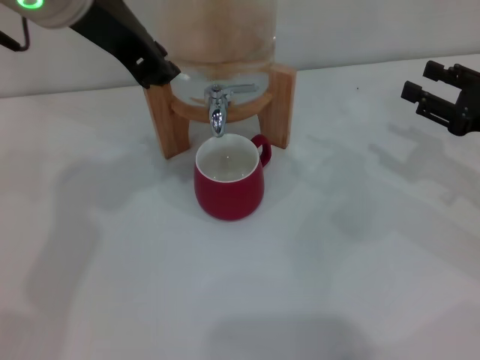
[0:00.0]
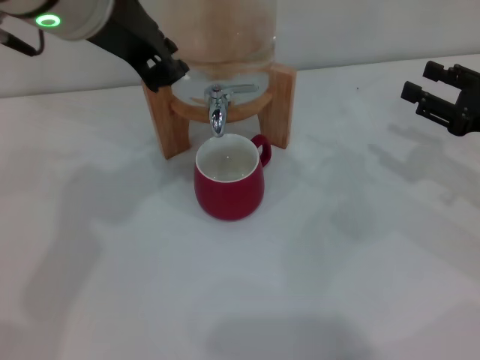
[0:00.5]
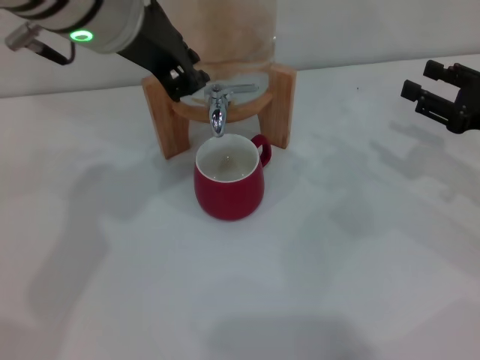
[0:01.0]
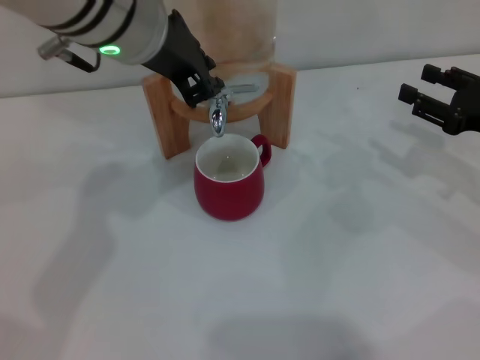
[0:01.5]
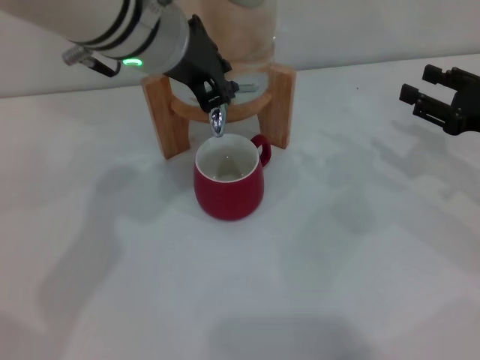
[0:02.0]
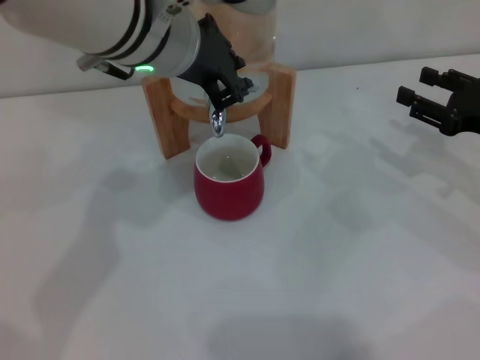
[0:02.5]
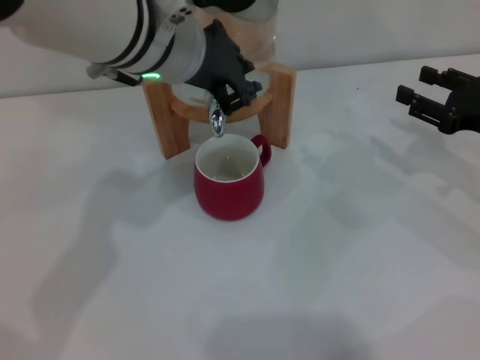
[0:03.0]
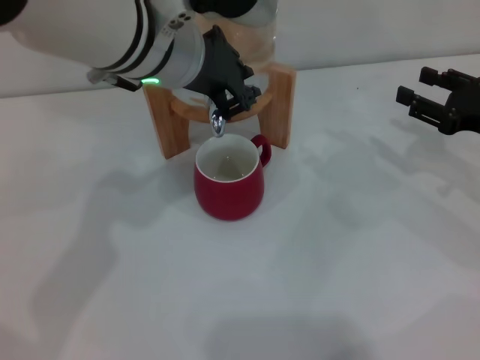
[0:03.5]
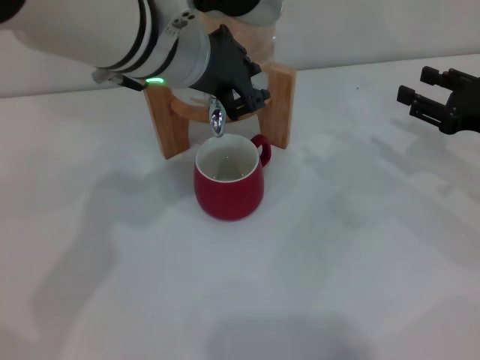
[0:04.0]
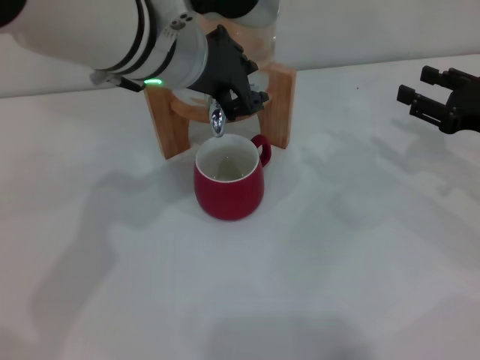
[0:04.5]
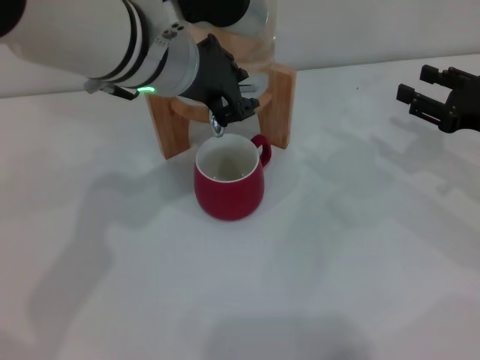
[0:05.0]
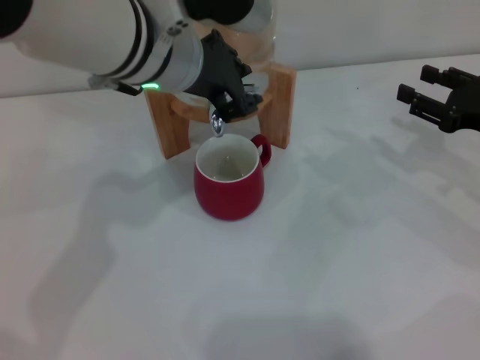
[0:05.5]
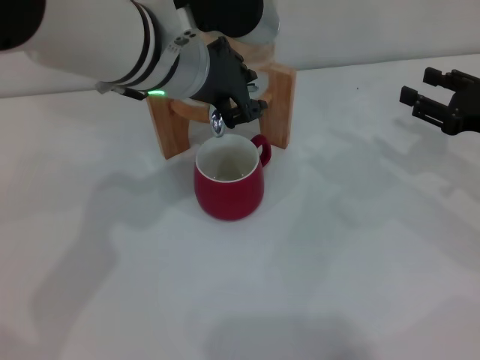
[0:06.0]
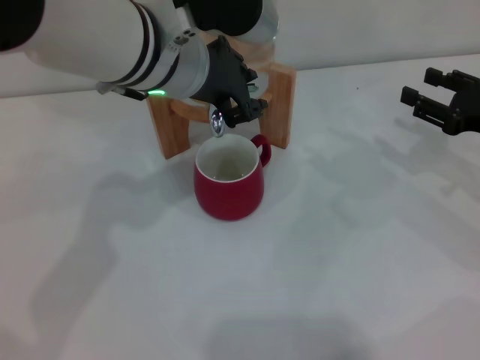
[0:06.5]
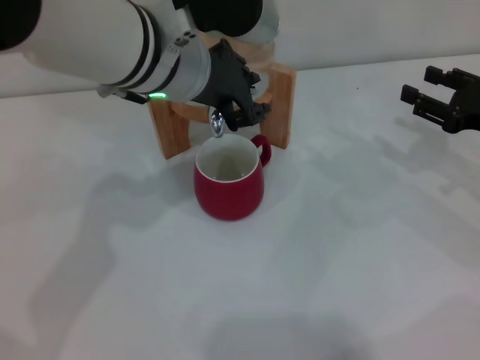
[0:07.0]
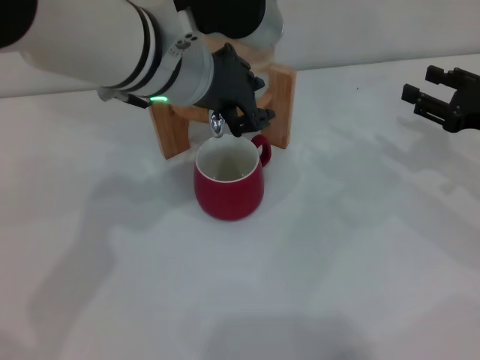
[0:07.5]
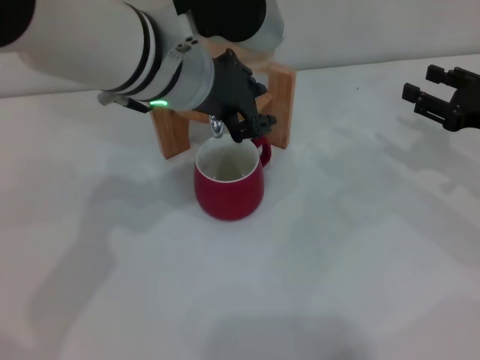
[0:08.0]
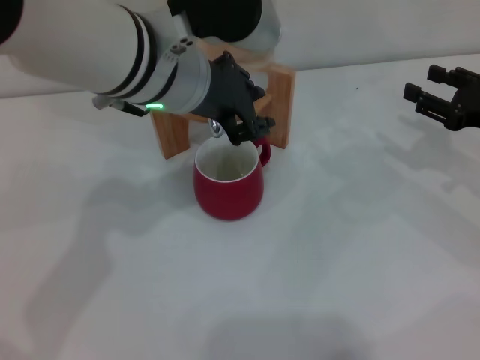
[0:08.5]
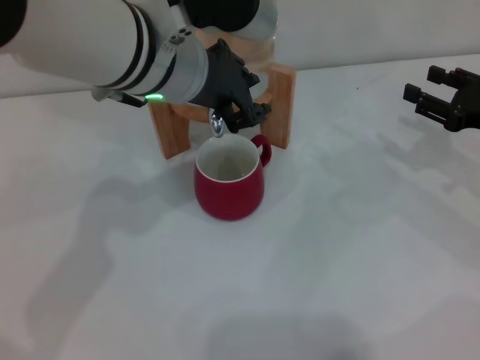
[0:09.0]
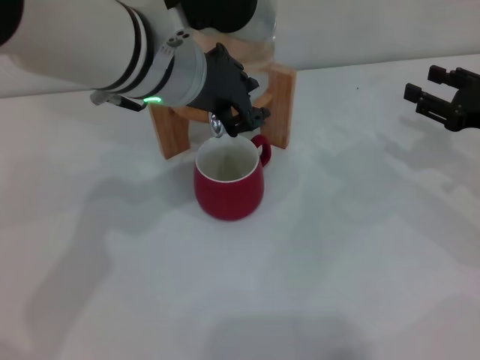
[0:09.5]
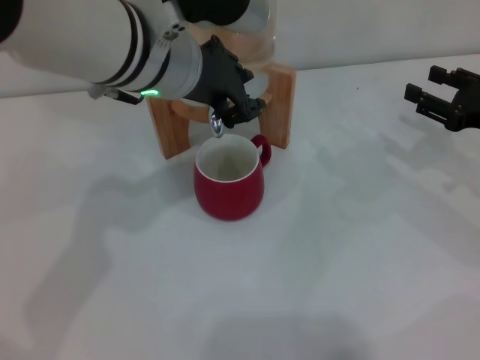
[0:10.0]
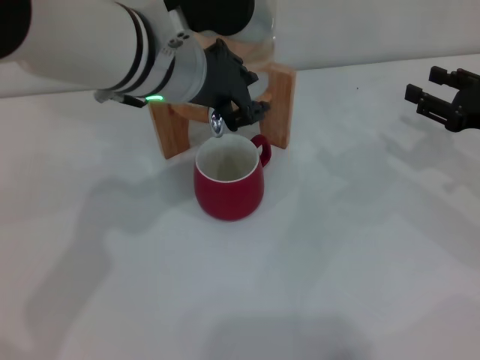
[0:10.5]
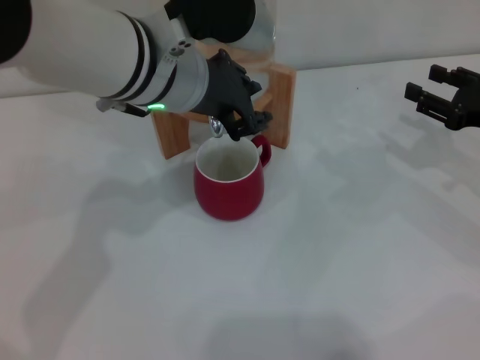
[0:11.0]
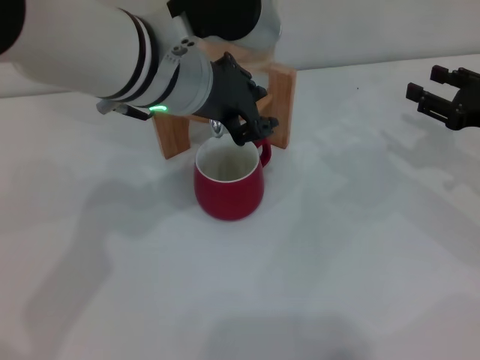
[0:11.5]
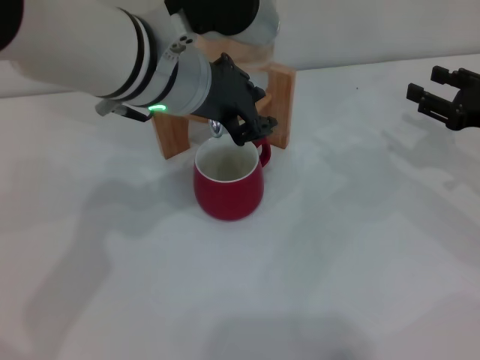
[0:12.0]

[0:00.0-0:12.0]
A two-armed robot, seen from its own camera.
Task of the whole recording: the right gripper pick up the red cup and place it horizontally under the faucet, the left gripper turn on the faucet to fill the cup, and then turn off the faucet.
0:00.0 to 0:02.0: The left gripper moves downward, some 5 cm.
0:02.0 to 0:06.0: The grippers move only a little.
0:06.0 to 0:08.0: The two grippers keep their place.
0:08.0 to 0:10.0: Both grippers stay about where they are.
0:10.0 to 0:12.0: Both grippers stay about where they are.

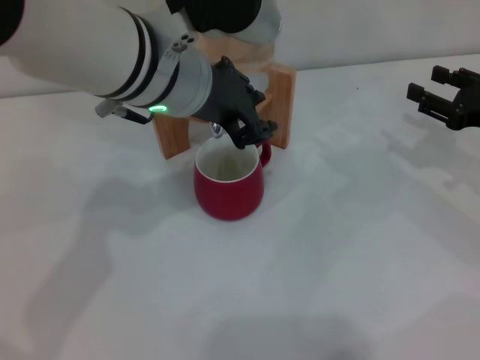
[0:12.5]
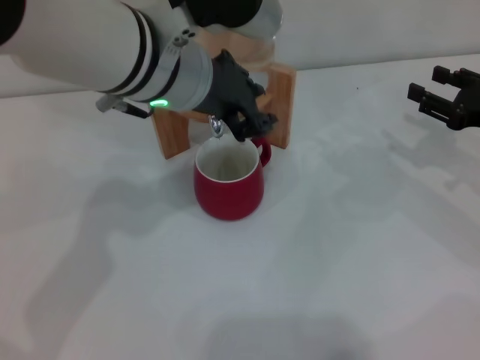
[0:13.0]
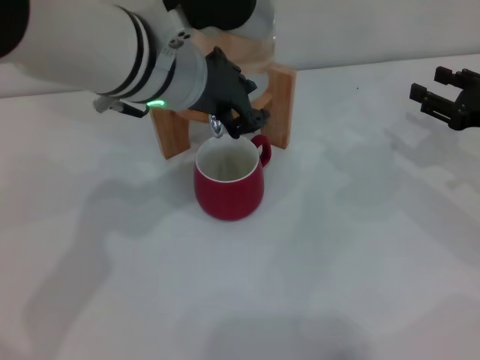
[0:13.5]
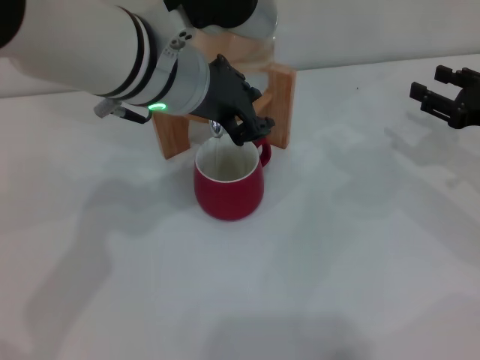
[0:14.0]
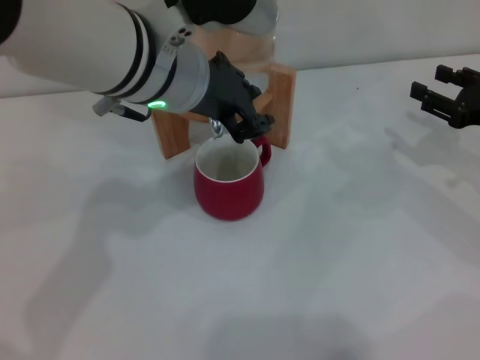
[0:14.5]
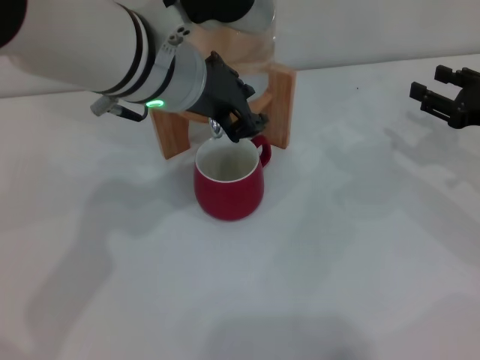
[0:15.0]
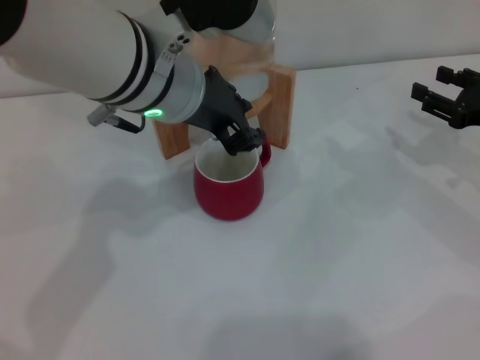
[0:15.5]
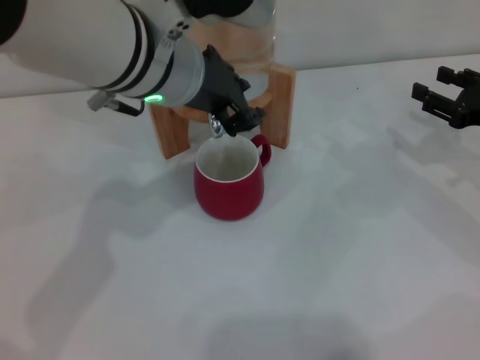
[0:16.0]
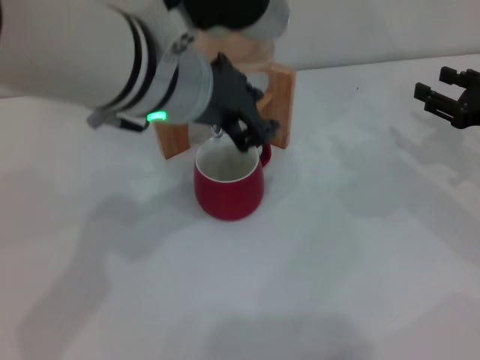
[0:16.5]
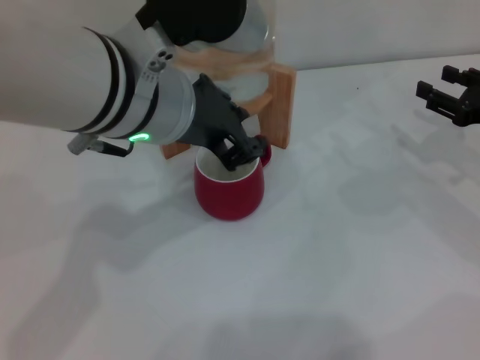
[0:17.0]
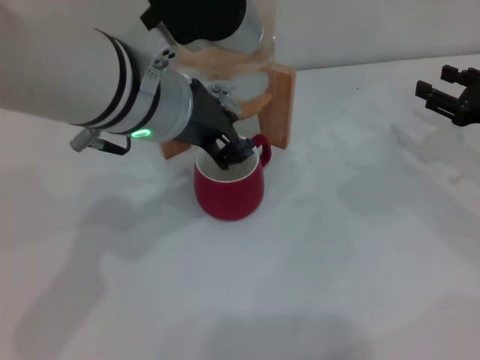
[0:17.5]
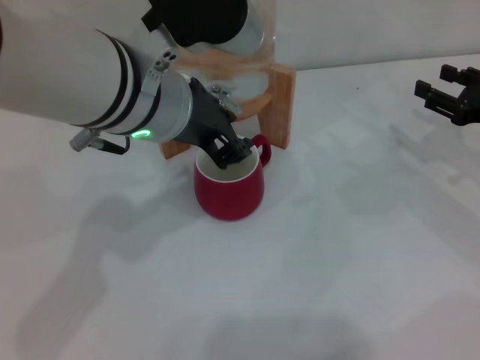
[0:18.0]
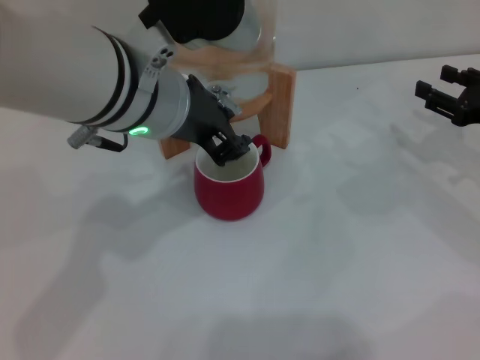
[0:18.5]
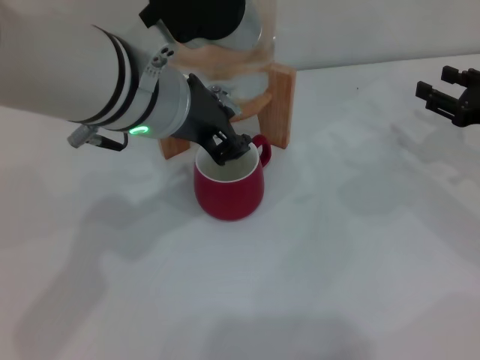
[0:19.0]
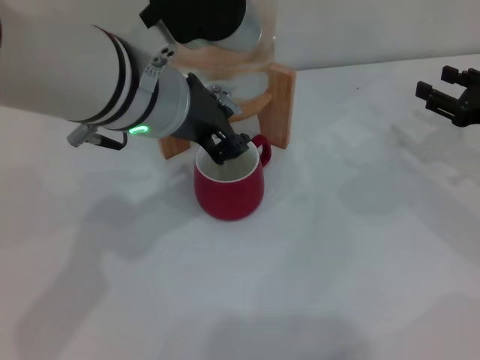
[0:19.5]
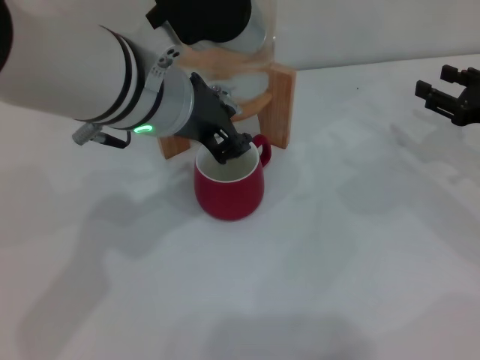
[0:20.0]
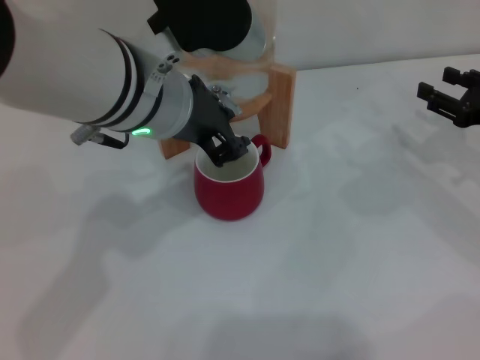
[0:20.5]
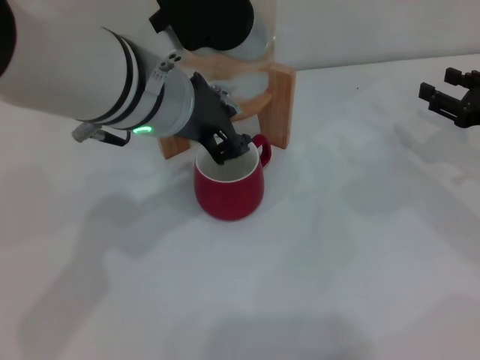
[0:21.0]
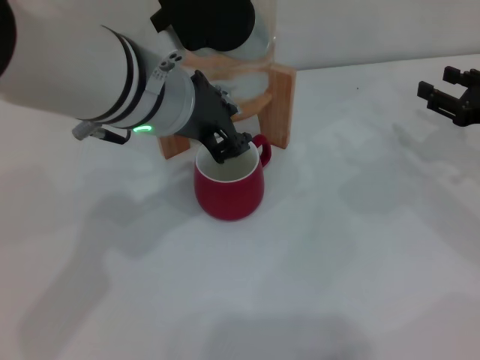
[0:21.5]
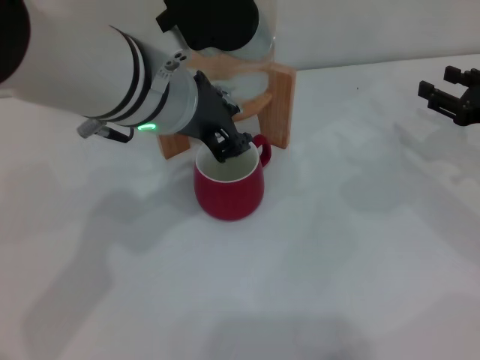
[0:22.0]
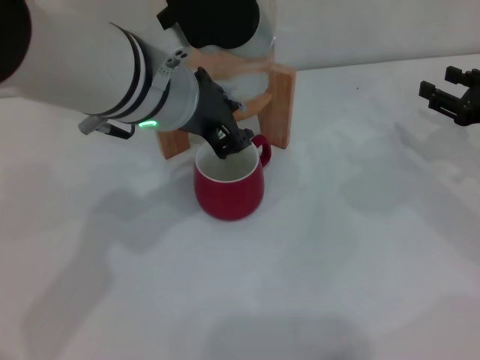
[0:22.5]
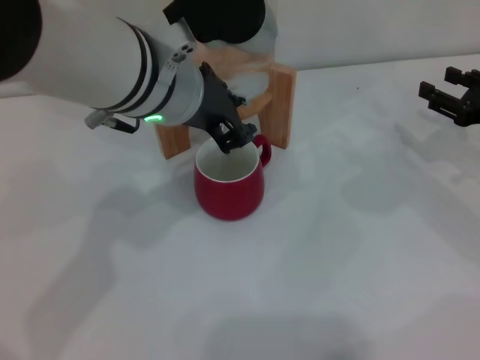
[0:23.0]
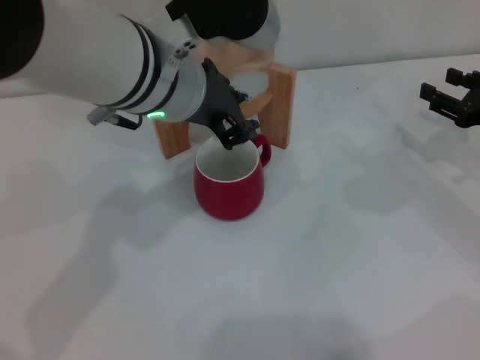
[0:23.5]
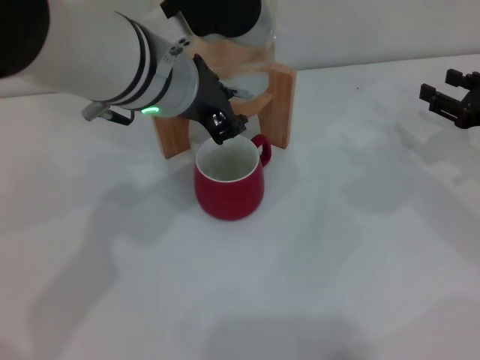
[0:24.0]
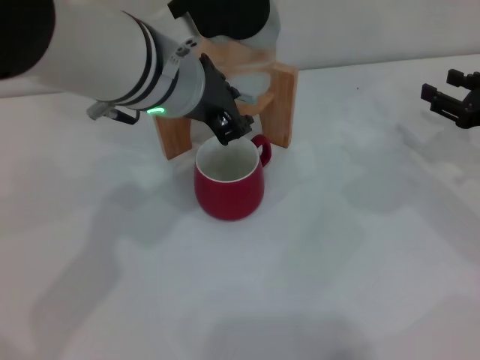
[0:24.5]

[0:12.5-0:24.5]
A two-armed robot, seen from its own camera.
Task of the whole recording: the right gripper pick up the red cup and place it horizontally under the faucet, the left gripper turn on the faucet to fill the cup, and then turn off the faucet.
Step, 0:12.5 to 0:20.5: Open the dispenser valve and fill the cup with water with the left gripper.
0:12.5 to 0:14.5: Both grippers stay put.
0:14.5 to 0:18.5: There are only small adjustments of the grippers.
0:18.5 to 0:20.5: Neither gripper changes place.
0:20.5 to 0:22.5: The two grippers keep their place.
0:22.5 to 0:24.5: The two grippers keep their place.

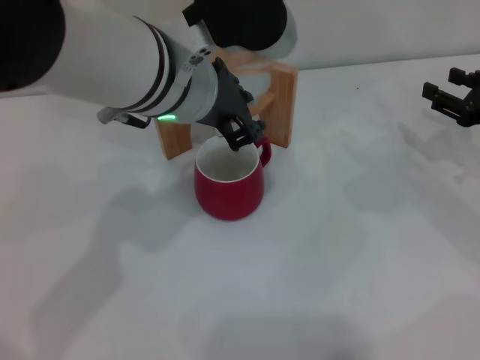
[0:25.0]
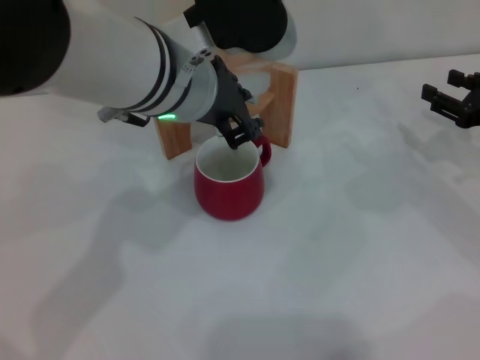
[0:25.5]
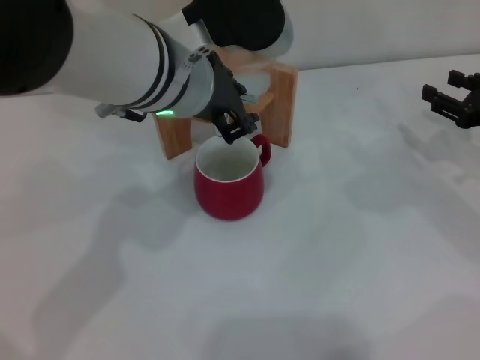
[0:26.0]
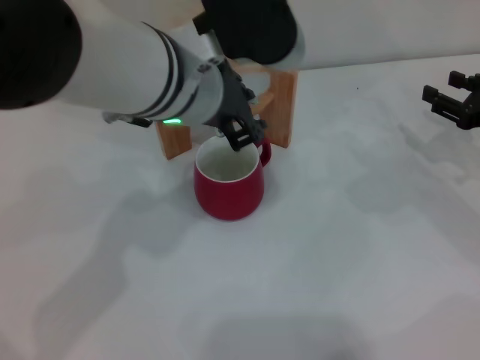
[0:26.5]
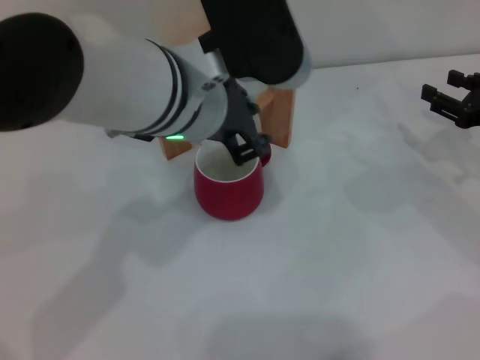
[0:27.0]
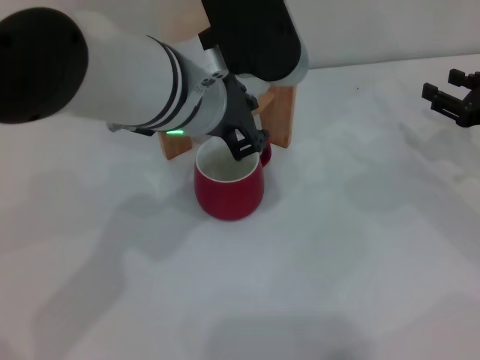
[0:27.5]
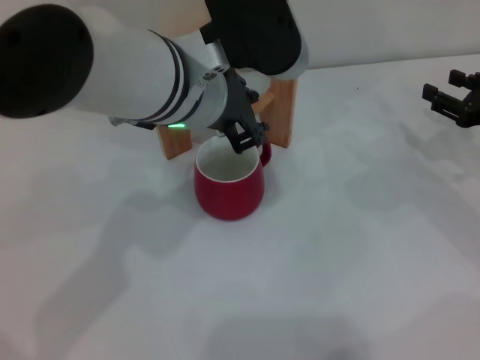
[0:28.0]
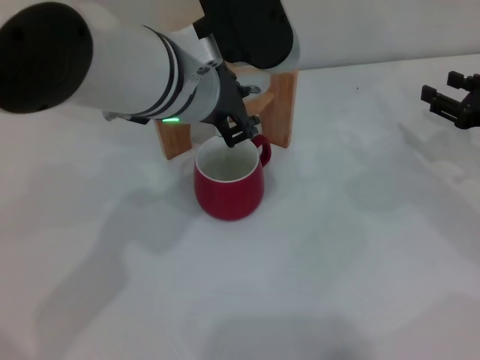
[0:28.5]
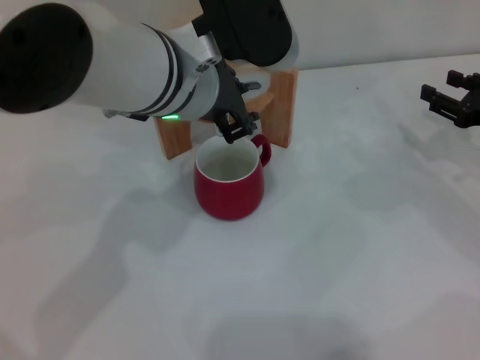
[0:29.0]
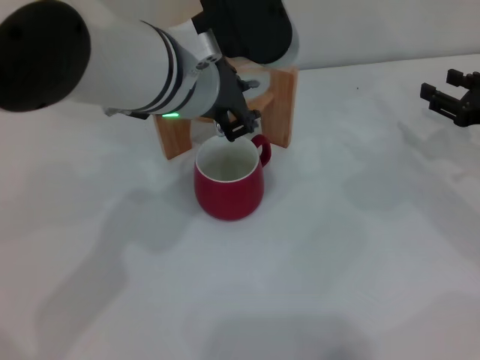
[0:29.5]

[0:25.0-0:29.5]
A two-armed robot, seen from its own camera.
Task of the whole recording: the right gripper pick up the red cup and place it horizontally under the faucet, the left gripper turn on the faucet to fill the cup, and then turn off the faucet.
0:25.0 to 0:29.5: The grippers stay close to where they were, moving slightly.
